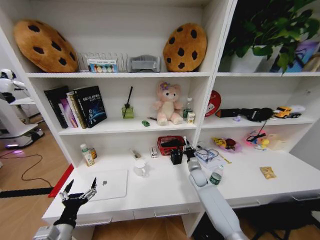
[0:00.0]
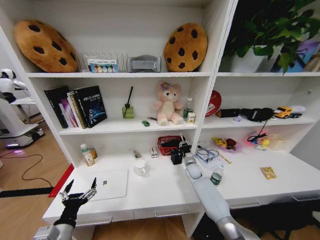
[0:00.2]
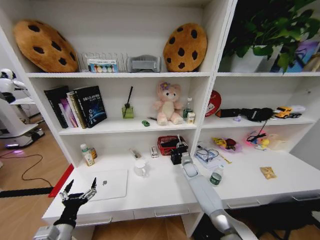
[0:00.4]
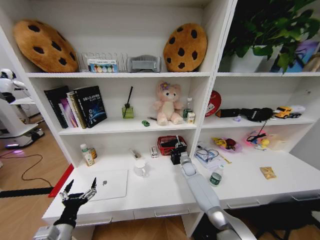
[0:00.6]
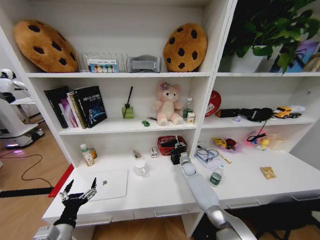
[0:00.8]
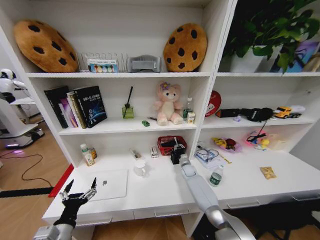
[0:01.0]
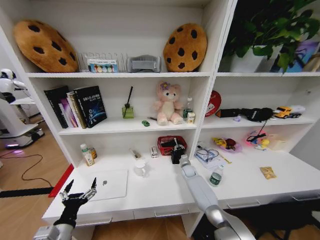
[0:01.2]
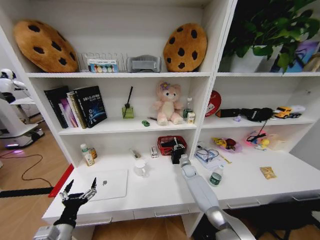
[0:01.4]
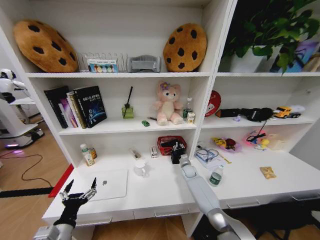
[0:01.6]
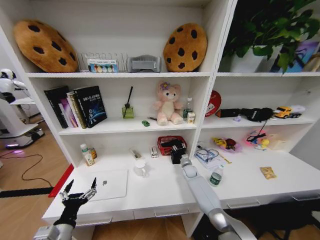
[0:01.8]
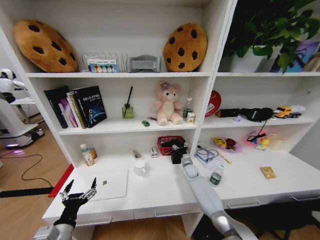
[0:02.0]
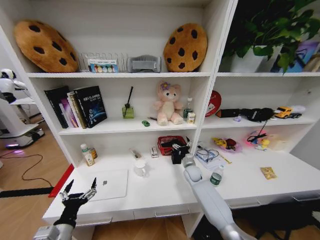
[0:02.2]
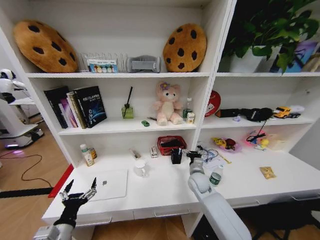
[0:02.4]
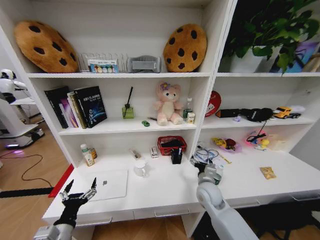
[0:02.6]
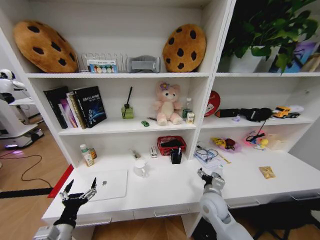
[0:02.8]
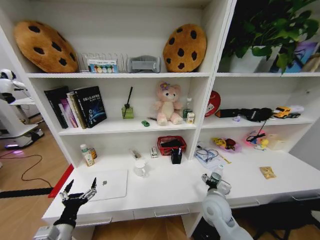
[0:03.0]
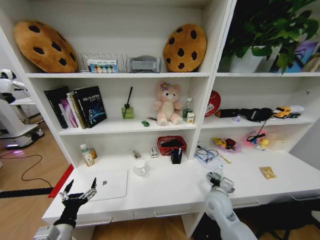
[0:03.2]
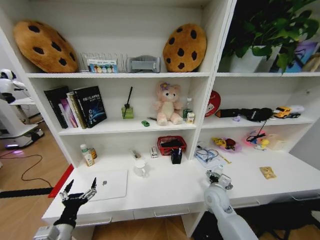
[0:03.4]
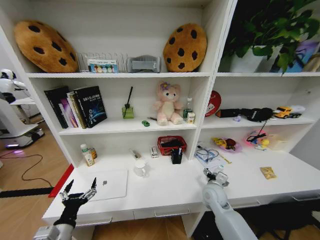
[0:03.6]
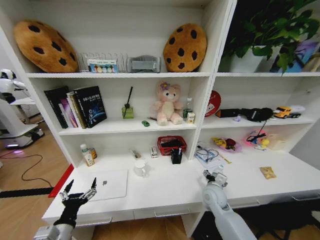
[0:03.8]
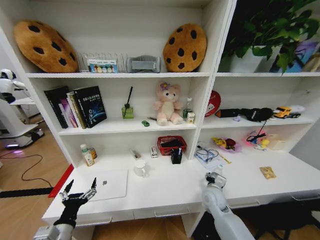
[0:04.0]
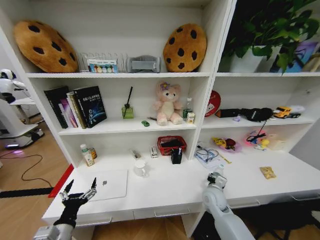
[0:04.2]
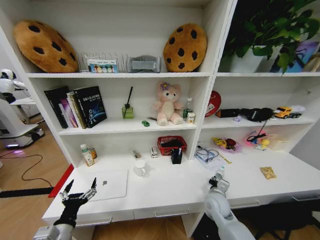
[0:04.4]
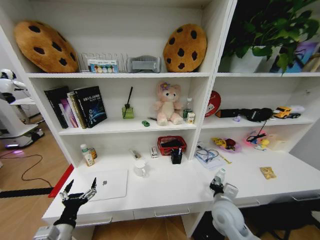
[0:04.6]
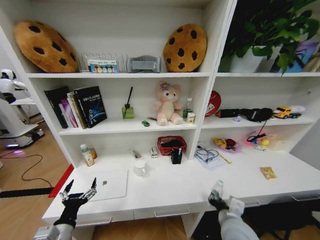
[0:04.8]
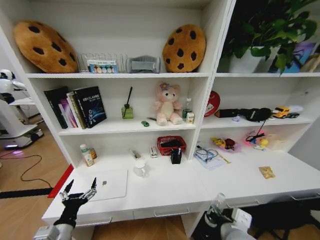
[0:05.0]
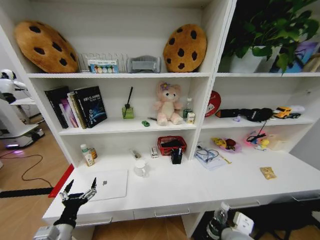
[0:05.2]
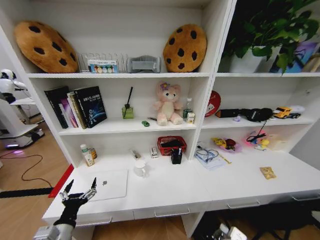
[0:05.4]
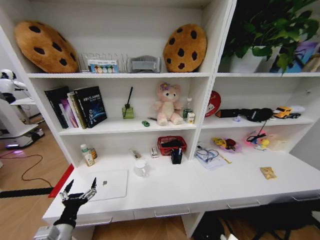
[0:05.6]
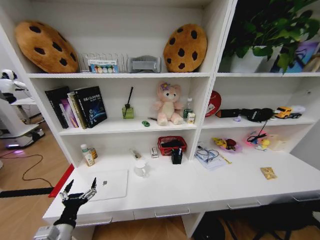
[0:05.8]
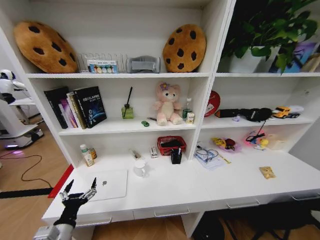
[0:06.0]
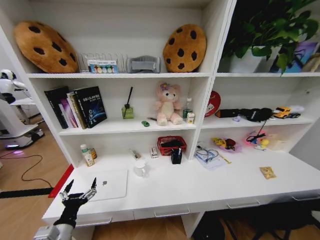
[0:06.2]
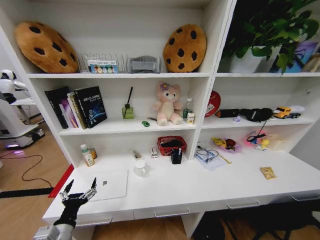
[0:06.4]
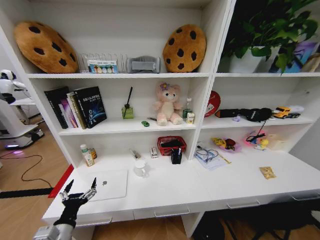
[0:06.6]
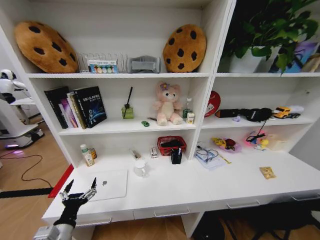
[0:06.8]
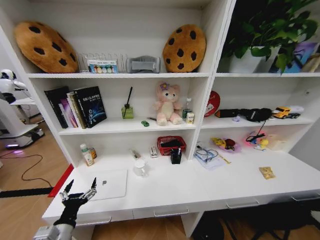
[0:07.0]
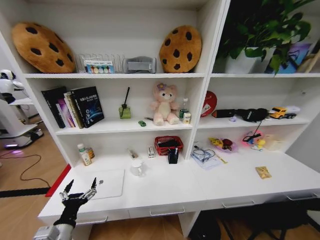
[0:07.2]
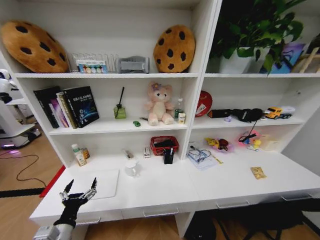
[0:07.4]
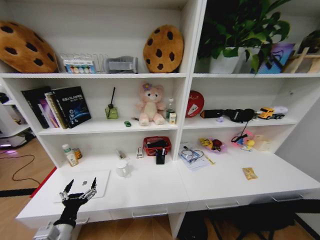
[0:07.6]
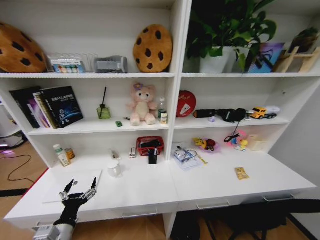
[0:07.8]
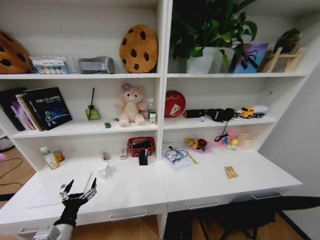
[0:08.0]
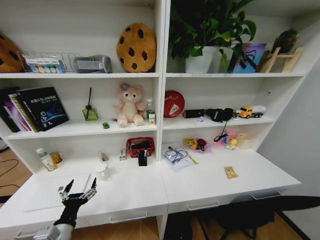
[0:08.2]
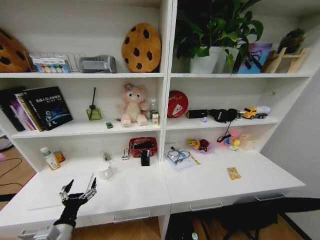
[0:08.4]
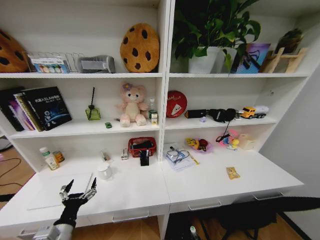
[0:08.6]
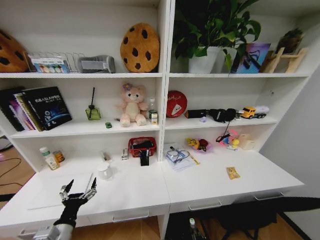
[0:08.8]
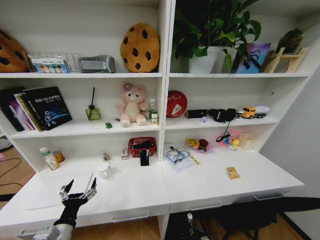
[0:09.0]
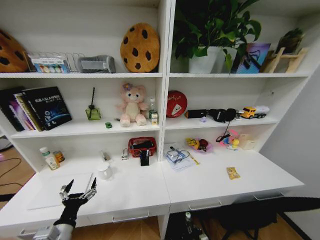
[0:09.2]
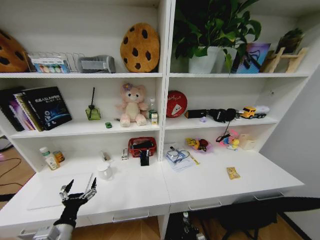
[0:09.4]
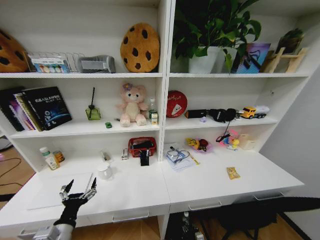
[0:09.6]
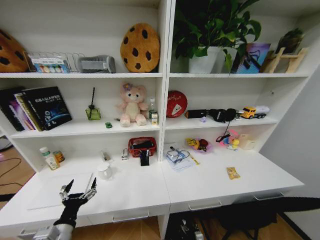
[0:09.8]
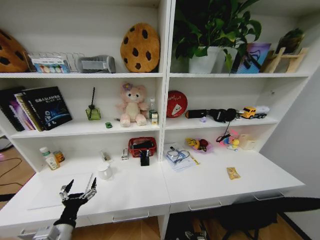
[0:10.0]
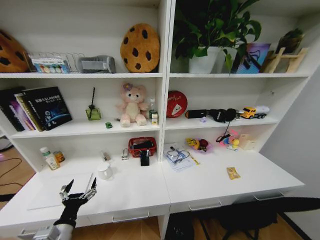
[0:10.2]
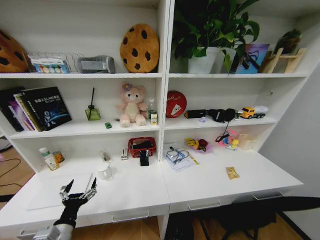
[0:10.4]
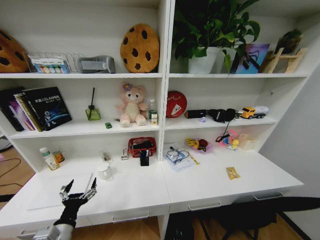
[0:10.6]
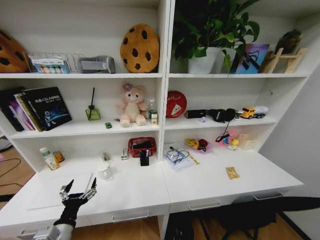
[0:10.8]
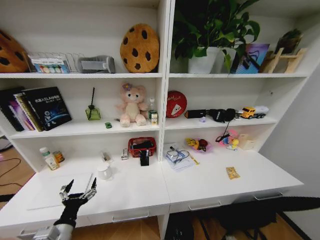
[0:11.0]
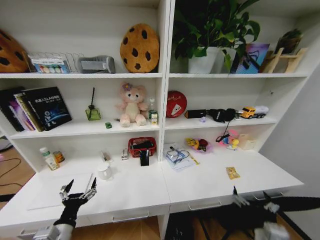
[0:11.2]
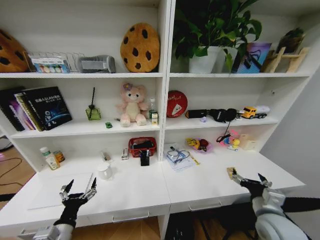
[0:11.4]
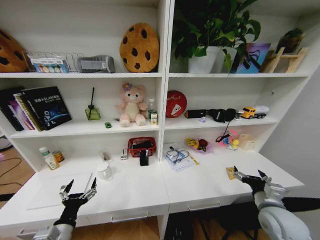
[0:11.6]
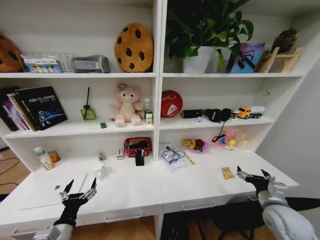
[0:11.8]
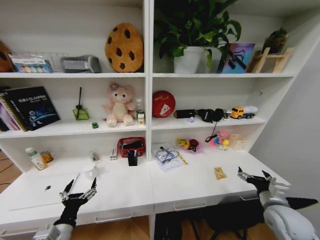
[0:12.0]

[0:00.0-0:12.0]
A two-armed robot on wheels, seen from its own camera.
Task of the whole recording: Organize the objects on the table.
0:00.0 to 0:01.6: The right gripper travels forward by some 5 cm.
0:01.6 to 0:03.0: The right gripper is displaced backward and upward by about 30 cm, and opens.
0:03.0 to 0:04.4: The right gripper moves about 5 cm, and closes up.
0:04.4 to 0:06.0: The right gripper goes approximately 30 cm backward and downward.
0:06.0 to 0:07.6: The right gripper heads backward, downward and to the right, covering about 20 cm.
0:07.6 to 0:09.0: The right gripper heads forward, covering some 25 cm.
0:09.0 to 0:10.4: The right gripper moves upward and backward, approximately 20 cm, and opens.
0:10.4 to 0:12.0: The right gripper travels upward, forward and to the right by approximately 40 cm.

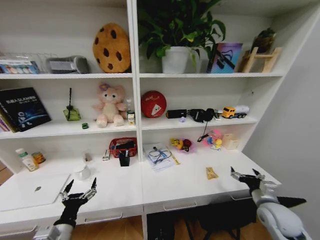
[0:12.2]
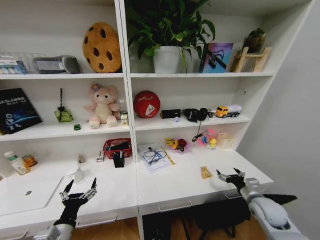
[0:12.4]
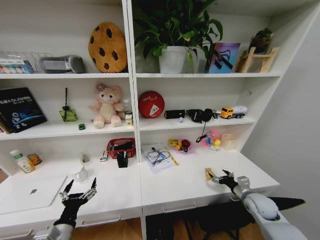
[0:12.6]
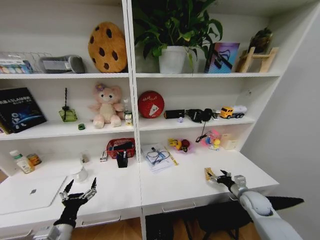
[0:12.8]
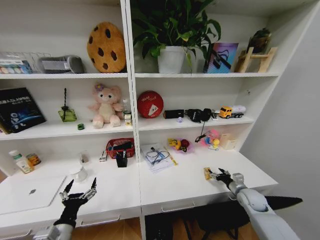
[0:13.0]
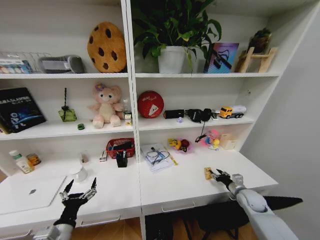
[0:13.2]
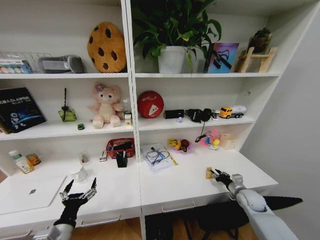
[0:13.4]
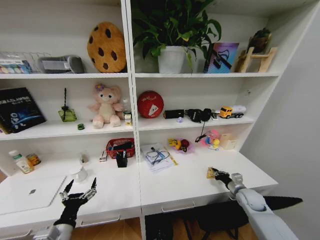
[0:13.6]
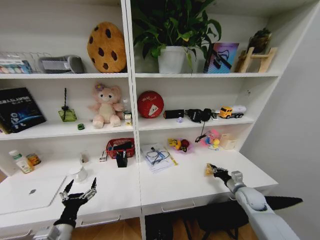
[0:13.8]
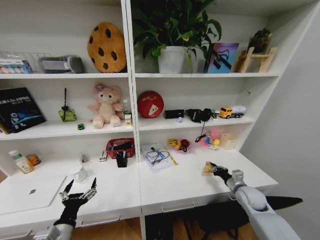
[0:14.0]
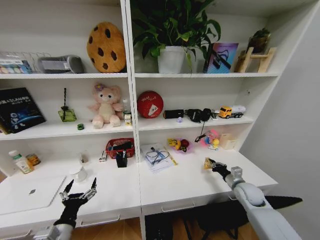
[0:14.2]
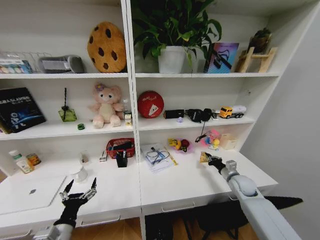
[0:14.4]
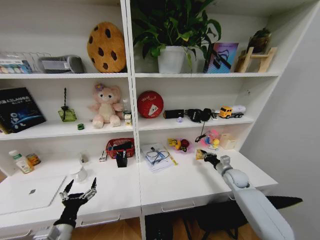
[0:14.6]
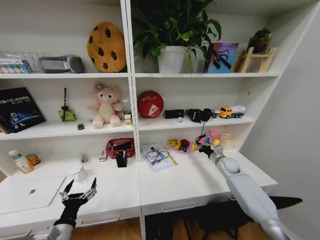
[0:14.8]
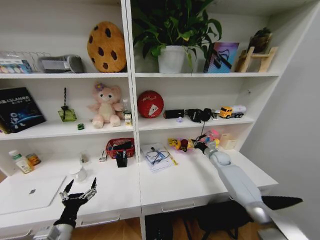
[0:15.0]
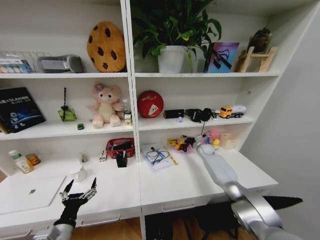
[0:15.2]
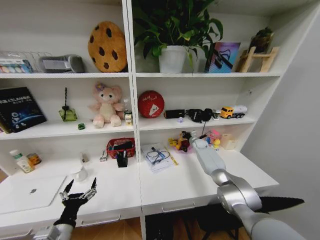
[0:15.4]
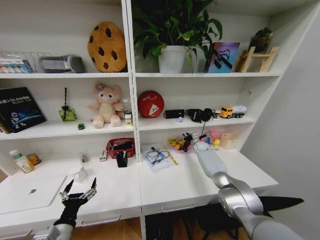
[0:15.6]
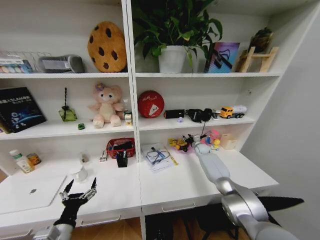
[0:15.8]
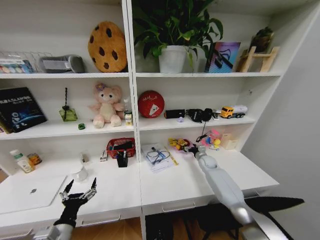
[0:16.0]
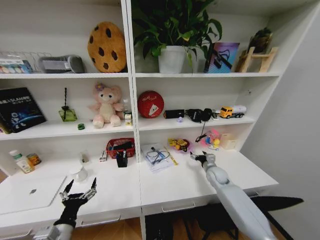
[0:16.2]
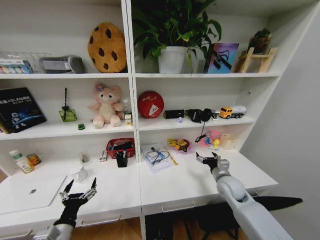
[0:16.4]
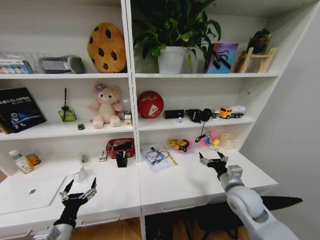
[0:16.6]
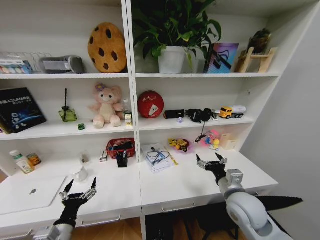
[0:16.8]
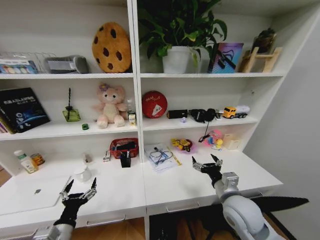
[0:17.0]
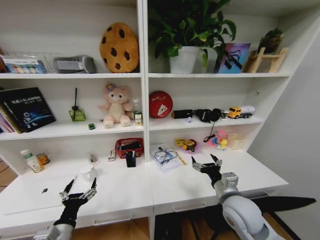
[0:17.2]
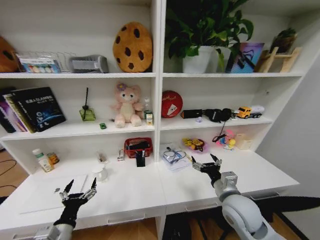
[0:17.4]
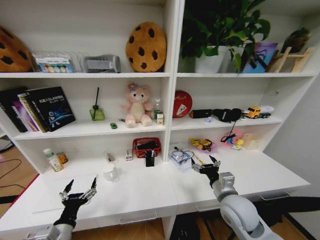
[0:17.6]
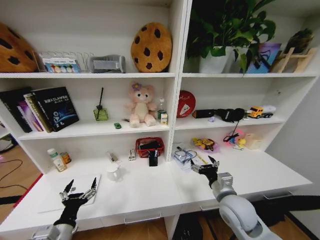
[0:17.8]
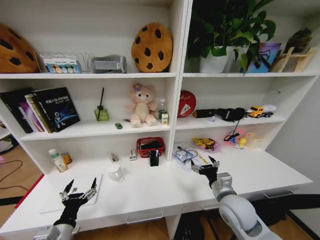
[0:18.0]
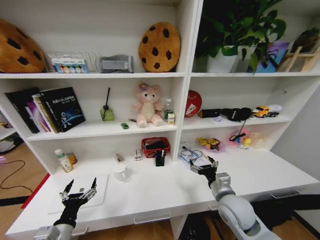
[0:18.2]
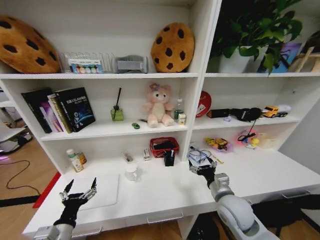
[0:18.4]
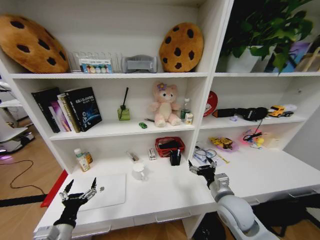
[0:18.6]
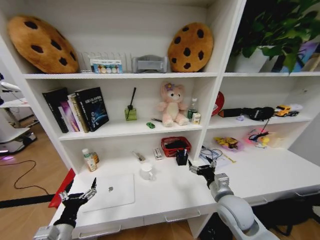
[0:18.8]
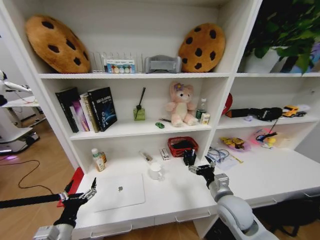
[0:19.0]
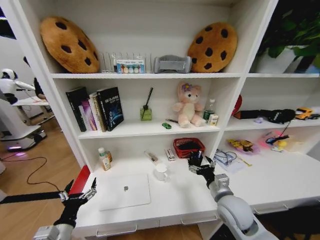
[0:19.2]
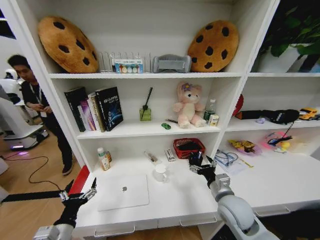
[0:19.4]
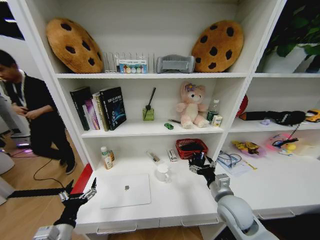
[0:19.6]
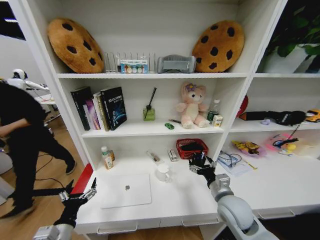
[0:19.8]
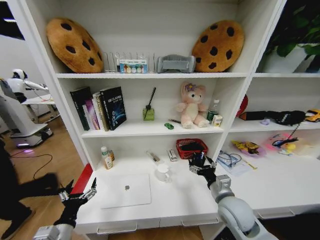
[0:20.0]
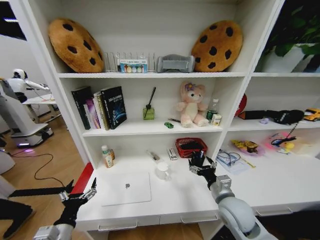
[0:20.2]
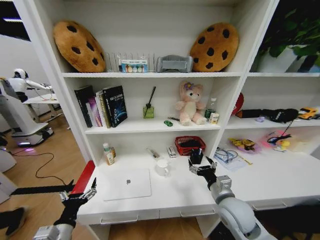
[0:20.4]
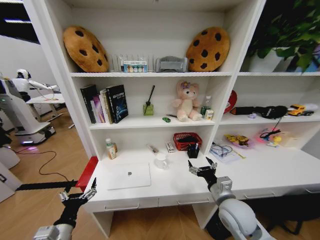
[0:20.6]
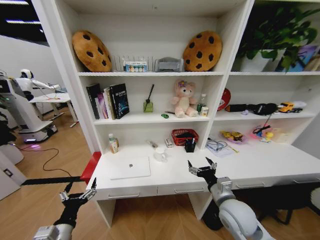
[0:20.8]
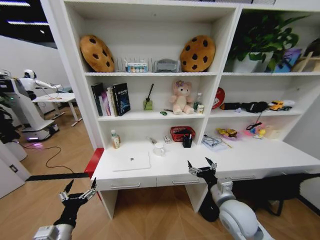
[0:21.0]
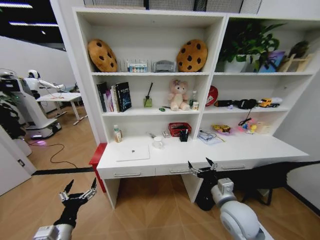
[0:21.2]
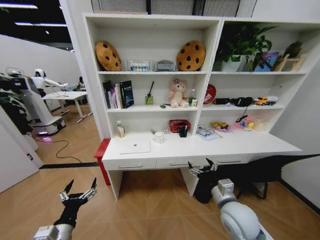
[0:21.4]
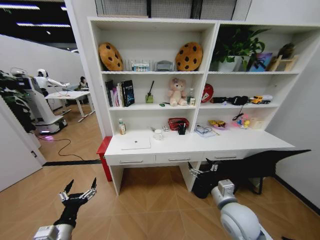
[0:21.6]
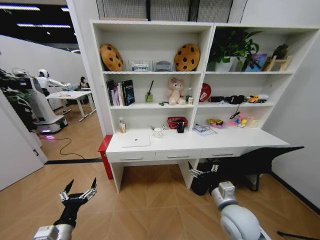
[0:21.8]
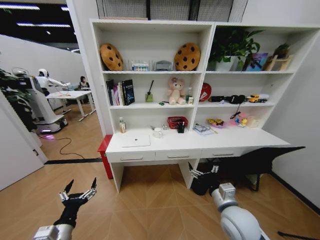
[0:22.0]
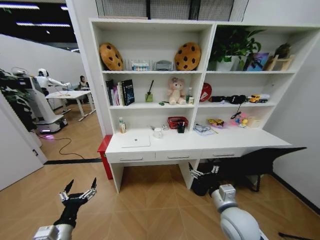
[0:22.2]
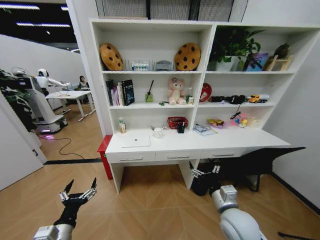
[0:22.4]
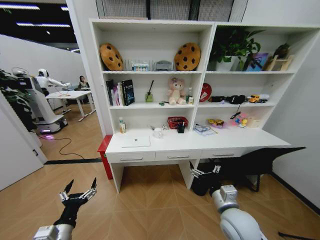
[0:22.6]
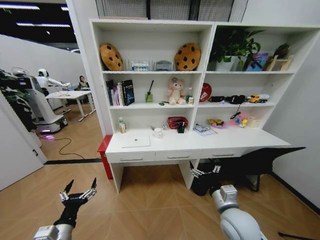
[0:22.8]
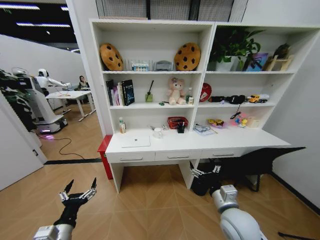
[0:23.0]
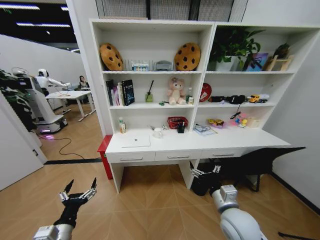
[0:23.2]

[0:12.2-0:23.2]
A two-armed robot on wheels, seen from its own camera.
Task of the whole recording: Organize the objects on the table.
0:12.2 to 0:13.8: The right gripper travels forward and downward by about 10 cm, and closes up.
0:13.8 to 0:15.4: The right gripper travels forward by roughly 30 cm.
0:15.4 to 0:17.0: The right gripper heads backward, covering roughly 40 cm, and opens its fingers.
0:21.6 to 0:23.2: The grippers make only small movements.
